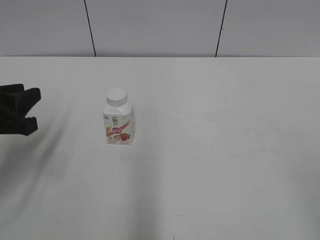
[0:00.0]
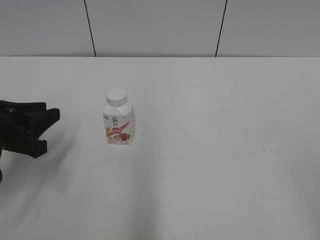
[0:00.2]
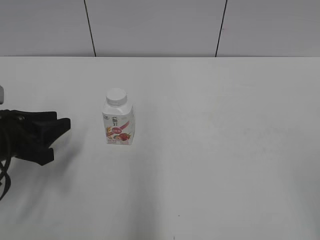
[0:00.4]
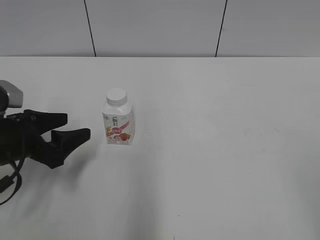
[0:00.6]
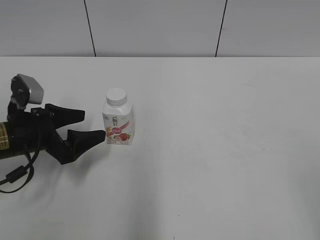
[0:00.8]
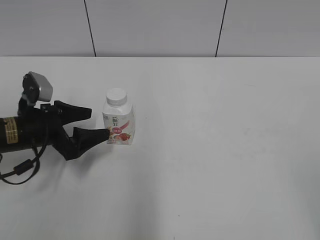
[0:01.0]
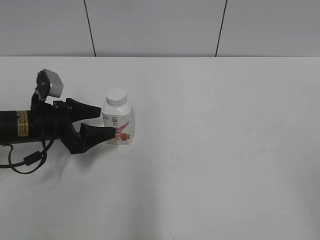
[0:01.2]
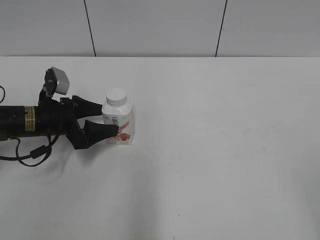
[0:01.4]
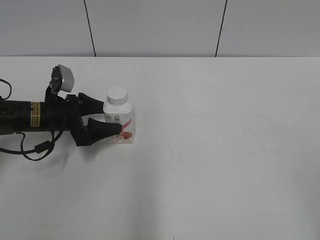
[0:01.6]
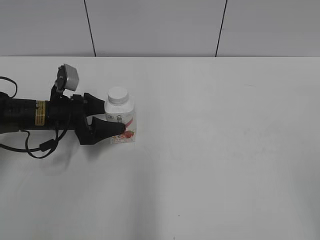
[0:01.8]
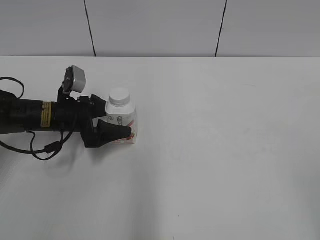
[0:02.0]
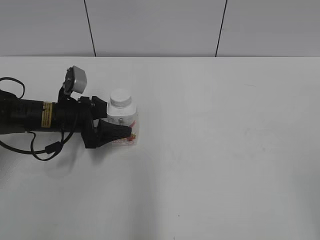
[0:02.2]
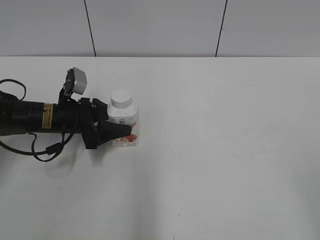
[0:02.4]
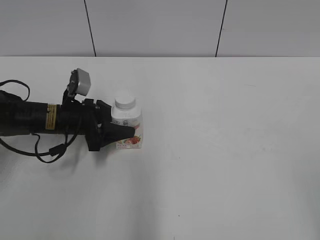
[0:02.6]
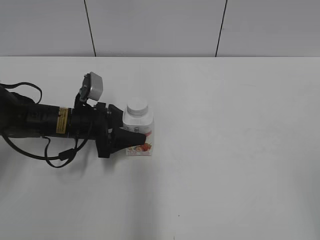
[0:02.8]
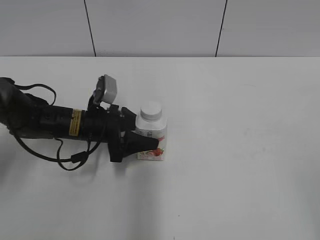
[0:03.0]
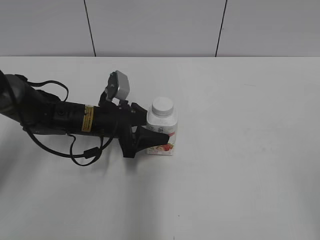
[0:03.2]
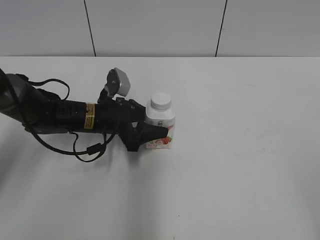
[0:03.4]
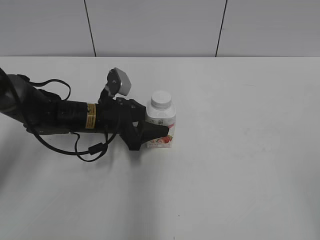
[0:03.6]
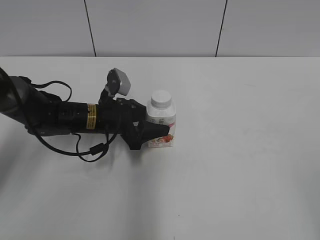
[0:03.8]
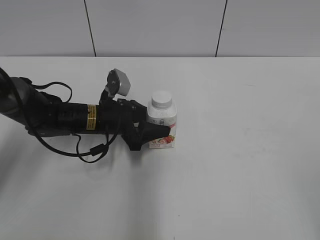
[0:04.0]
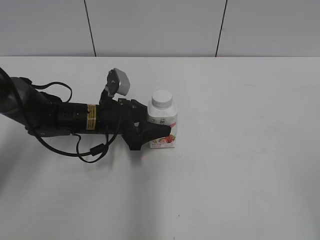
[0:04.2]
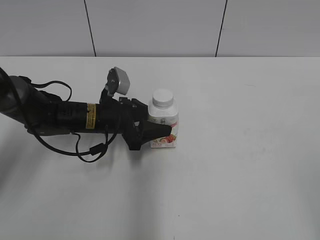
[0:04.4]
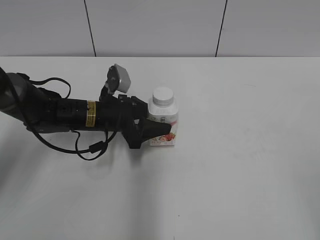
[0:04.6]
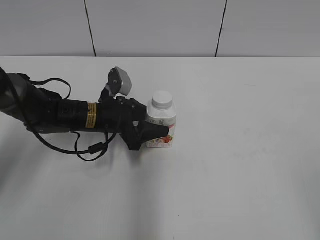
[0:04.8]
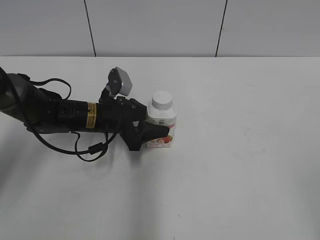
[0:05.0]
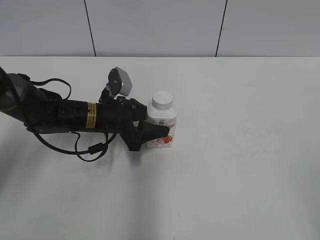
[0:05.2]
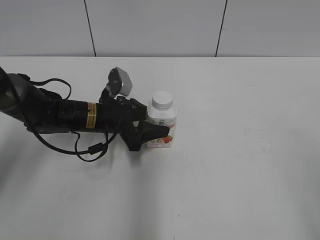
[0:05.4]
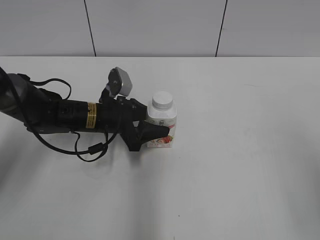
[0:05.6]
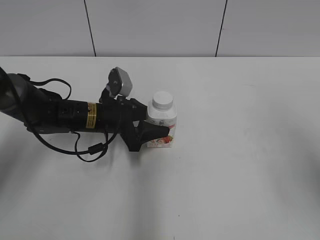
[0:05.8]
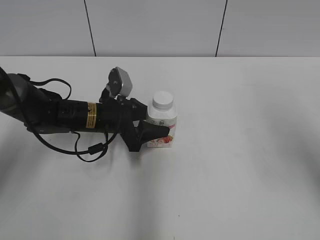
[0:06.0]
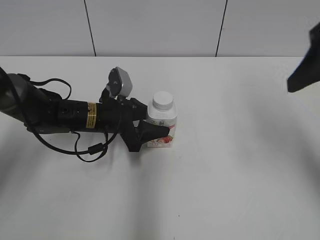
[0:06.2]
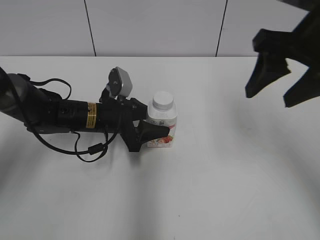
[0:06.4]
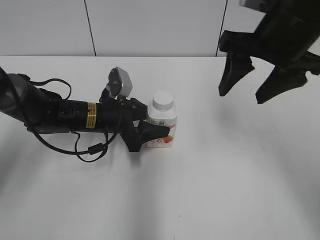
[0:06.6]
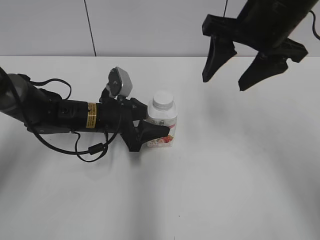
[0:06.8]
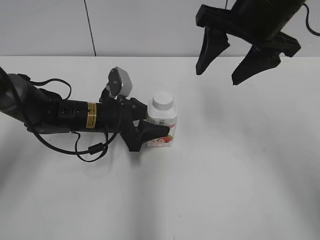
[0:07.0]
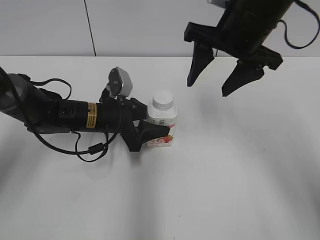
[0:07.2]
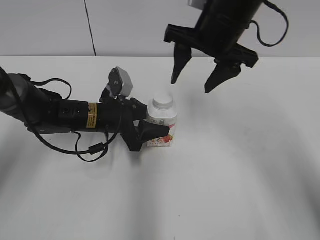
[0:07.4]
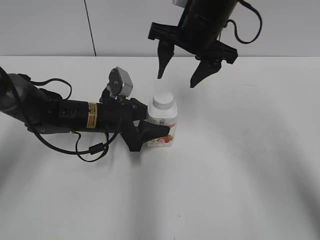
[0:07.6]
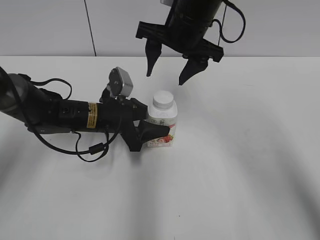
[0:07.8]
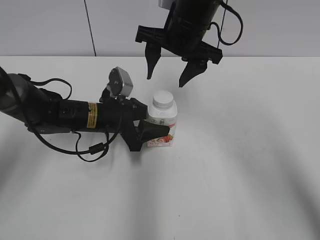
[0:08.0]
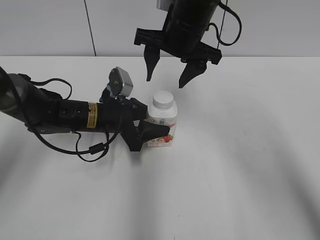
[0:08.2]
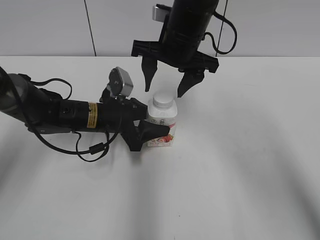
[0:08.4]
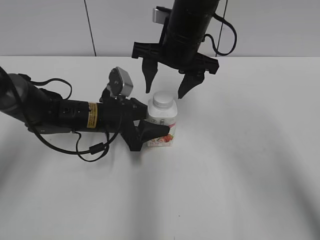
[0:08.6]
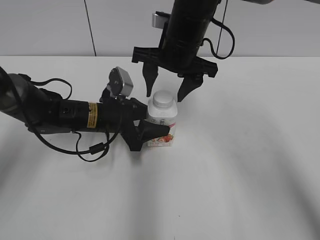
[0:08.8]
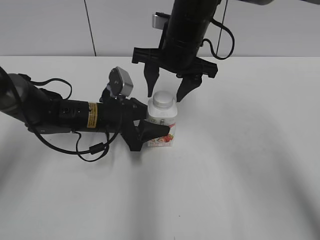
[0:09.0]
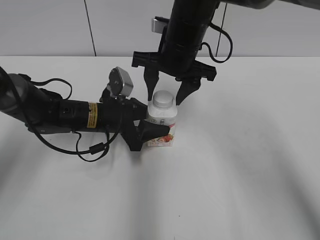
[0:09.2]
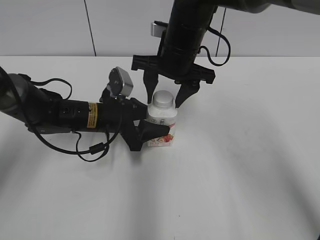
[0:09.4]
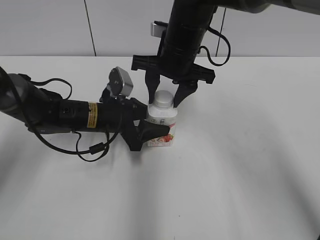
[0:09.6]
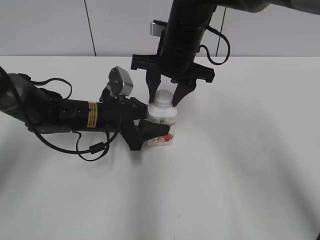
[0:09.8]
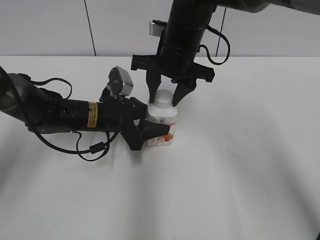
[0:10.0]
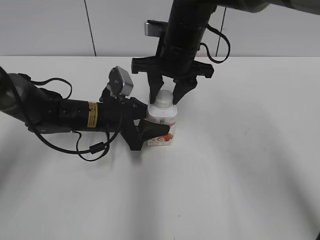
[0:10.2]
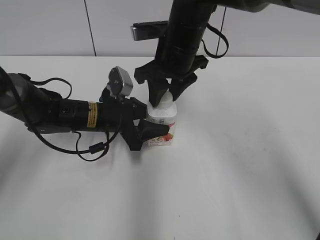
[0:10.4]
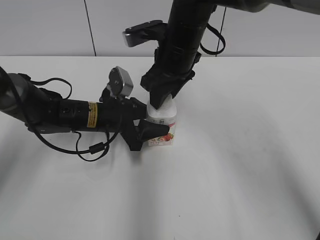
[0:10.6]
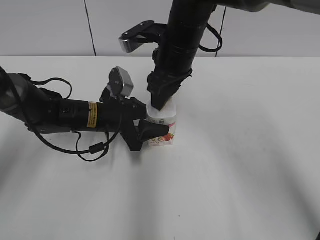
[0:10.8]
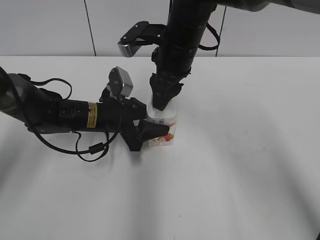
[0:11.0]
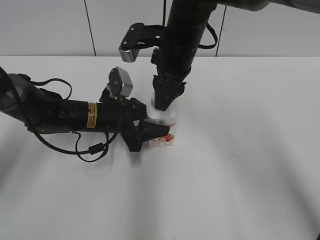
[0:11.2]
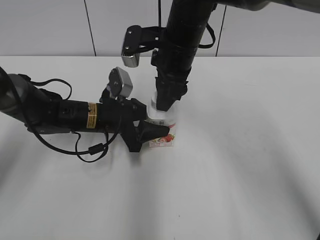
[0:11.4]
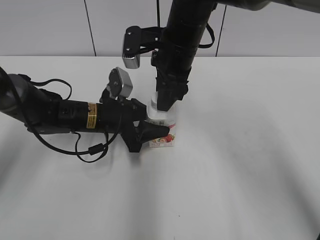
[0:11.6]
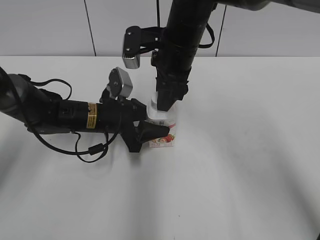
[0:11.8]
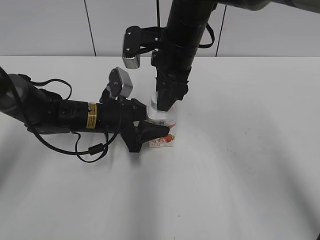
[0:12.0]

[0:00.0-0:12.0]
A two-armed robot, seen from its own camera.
Step, 0:00.0 to 0:02.0: Grab the Yili Changqing with the left hand.
Step, 0:02.2 to 0:05.2: Move the Yili Changqing from left to right.
0:00.0 to 0:01.6: The left gripper shifts about 15 cm forward and downward, and opens up.
0:01.6 to 0:03.0: The left gripper goes roughly 5 cm to the right, and closes up.
0:03.0 to 0:04.4: The grippers stay close to where they were, moving slightly.
0:04.4 to 0:06.0: The right gripper is displaced forward by about 20 cm.
0:06.0 to 0:07.6: The right gripper heads to the left and forward, covering some 25 cm.
0:07.6 to 0:09.0: There are only small adjustments of the grippers.
0:09.0 to 0:10.4: The right gripper closes.

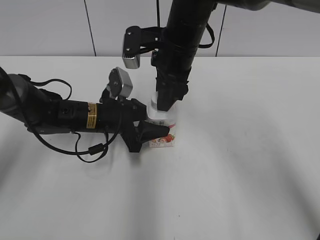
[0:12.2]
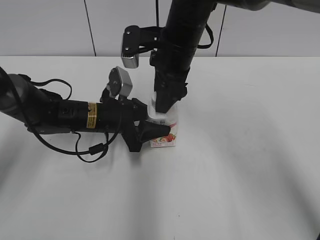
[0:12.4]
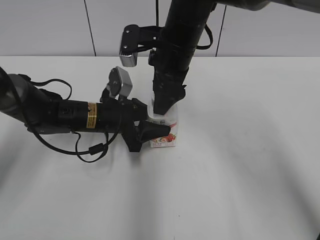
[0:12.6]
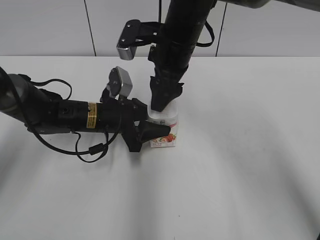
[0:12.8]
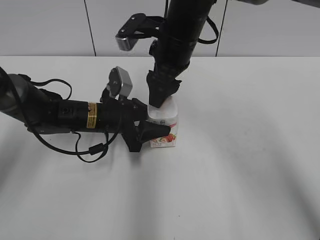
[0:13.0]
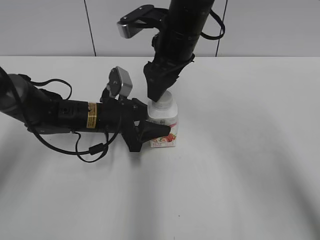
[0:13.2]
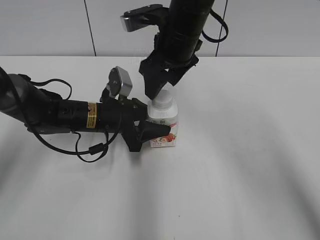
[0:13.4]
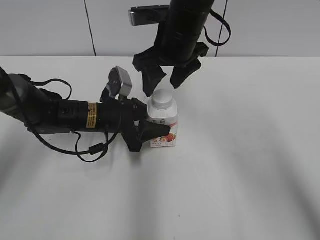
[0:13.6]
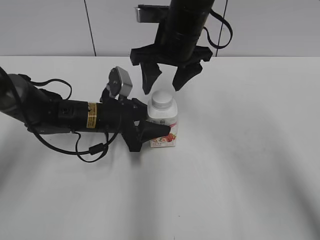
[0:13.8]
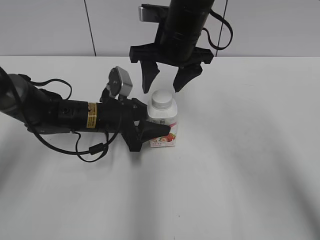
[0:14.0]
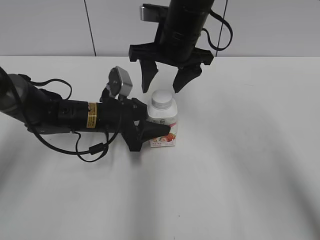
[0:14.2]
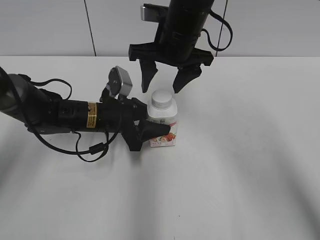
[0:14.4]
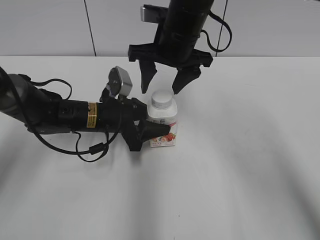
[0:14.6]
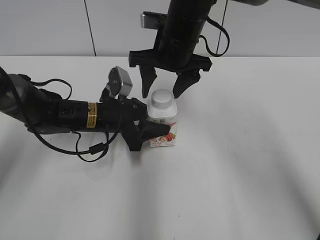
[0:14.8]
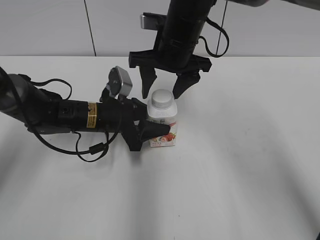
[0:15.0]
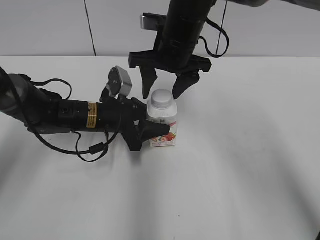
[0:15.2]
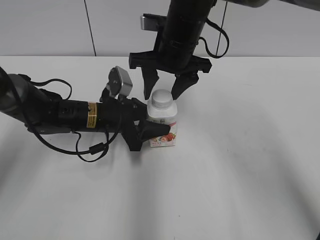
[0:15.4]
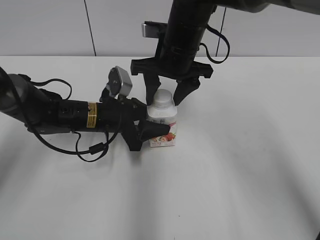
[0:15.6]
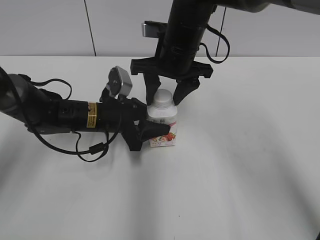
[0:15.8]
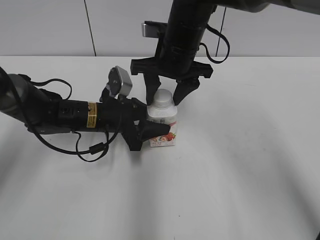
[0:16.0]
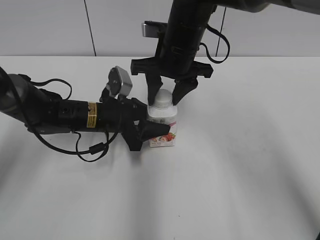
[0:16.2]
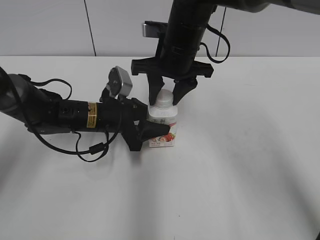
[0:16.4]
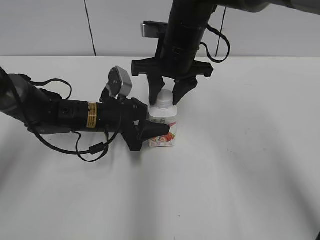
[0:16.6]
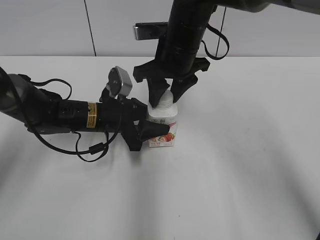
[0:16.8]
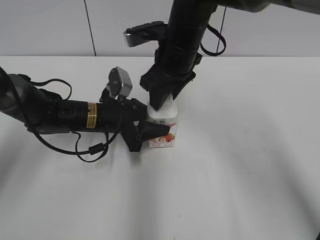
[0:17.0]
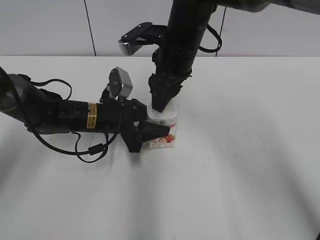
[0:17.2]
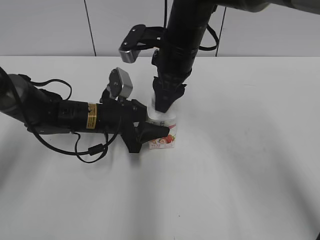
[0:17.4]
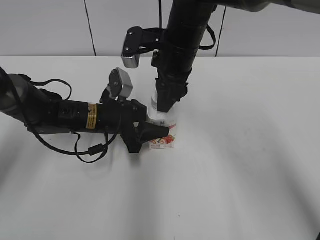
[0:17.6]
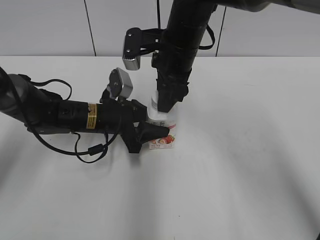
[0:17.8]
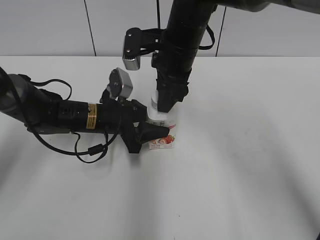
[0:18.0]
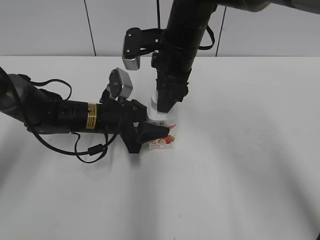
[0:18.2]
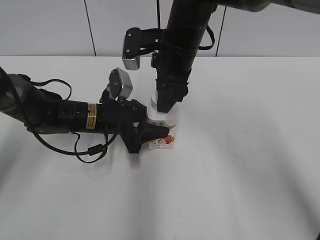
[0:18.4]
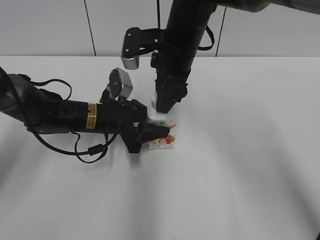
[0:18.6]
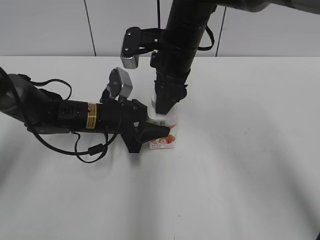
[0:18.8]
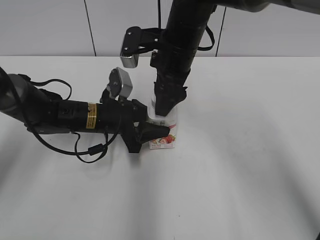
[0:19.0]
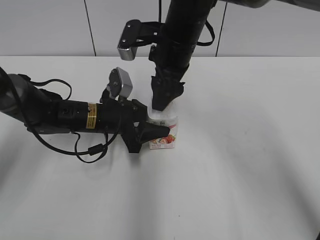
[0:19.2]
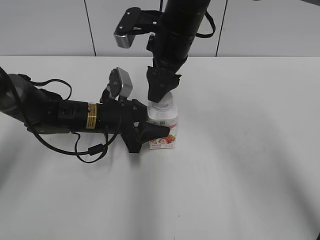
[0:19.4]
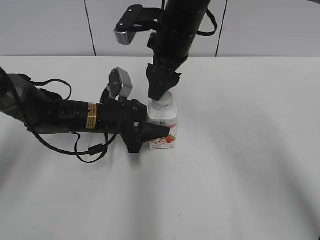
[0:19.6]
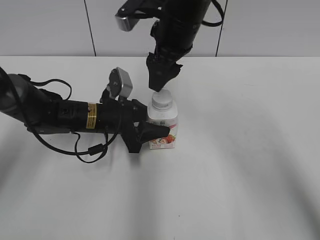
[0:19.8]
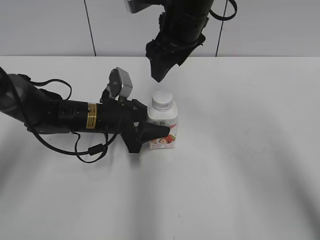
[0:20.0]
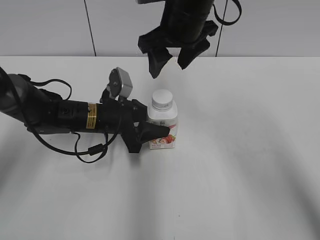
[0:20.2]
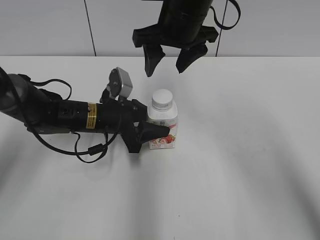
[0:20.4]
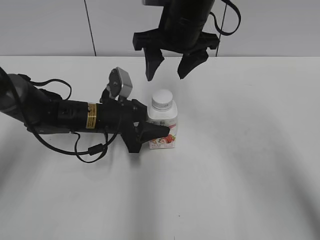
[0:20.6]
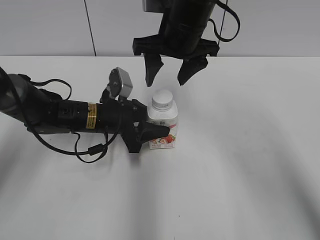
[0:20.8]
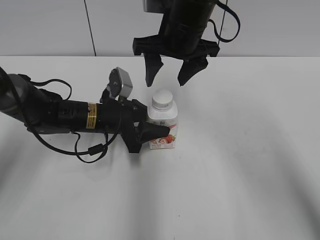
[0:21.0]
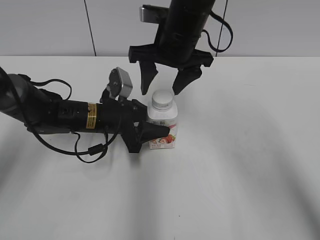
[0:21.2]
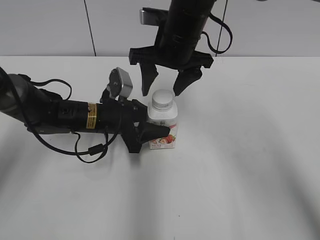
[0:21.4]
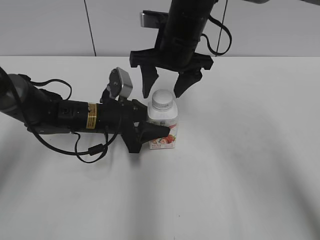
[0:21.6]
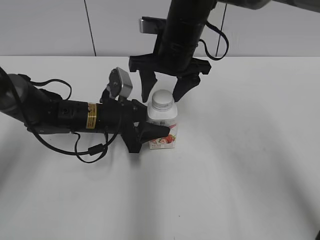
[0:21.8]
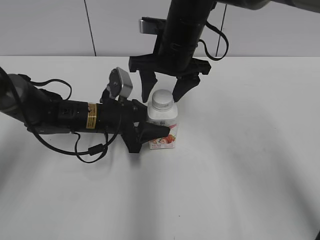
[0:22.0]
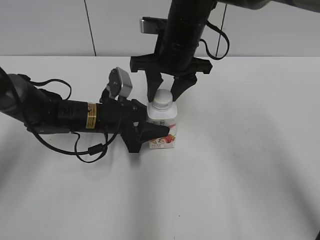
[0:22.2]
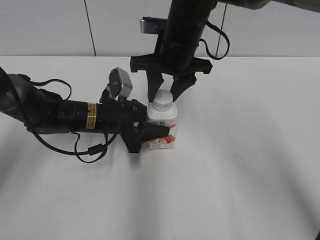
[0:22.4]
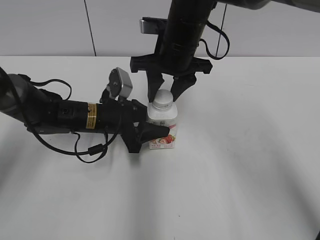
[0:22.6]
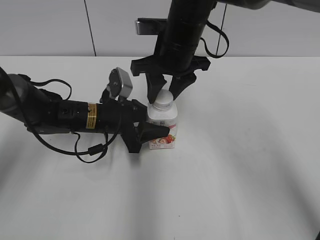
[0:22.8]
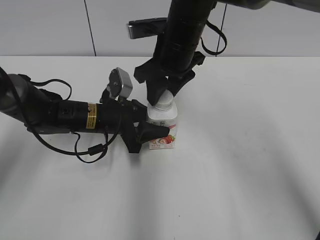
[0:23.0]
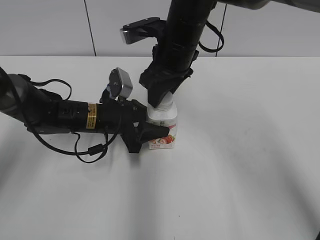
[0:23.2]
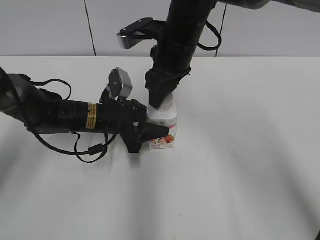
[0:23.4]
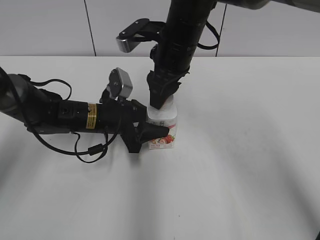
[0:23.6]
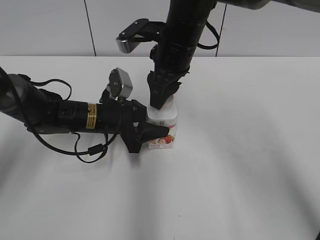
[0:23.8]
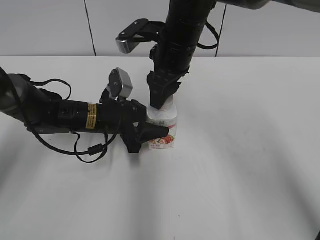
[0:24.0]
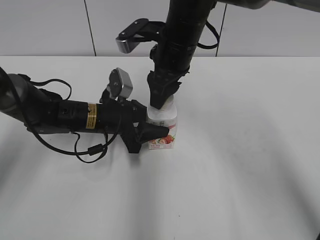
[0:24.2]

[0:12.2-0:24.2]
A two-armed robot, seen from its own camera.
0:12.2 to 0:13.8: The right gripper opens up.
0:13.8 to 0:15.2: The grippers stay close to where they were, moving slightly.
0:15.2 to 0:16.6: The right gripper closes its fingers.
0:18.2 to 0:19.8: The right gripper opens.
0:21.2 to 0:22.6: The right gripper closes up.
